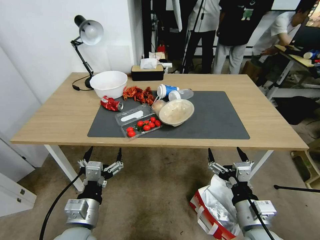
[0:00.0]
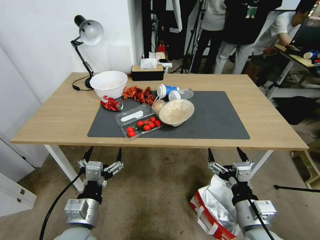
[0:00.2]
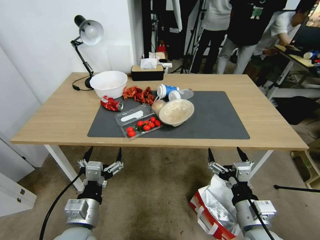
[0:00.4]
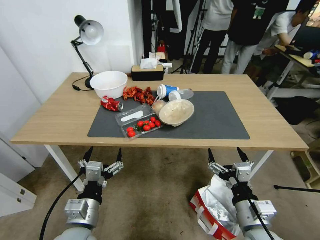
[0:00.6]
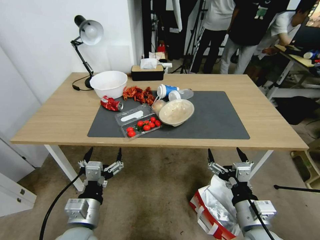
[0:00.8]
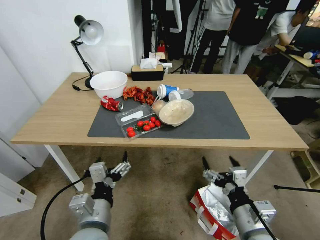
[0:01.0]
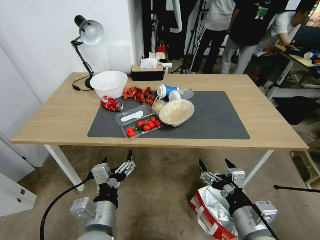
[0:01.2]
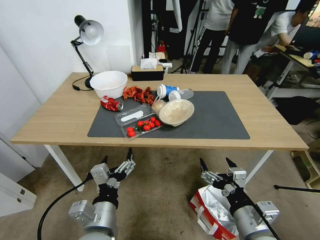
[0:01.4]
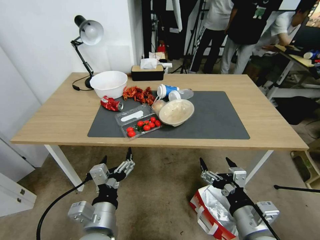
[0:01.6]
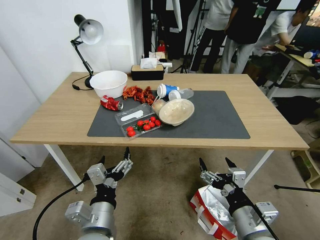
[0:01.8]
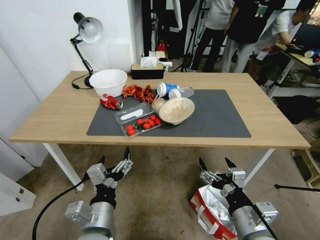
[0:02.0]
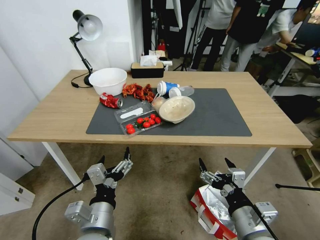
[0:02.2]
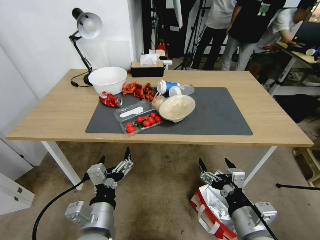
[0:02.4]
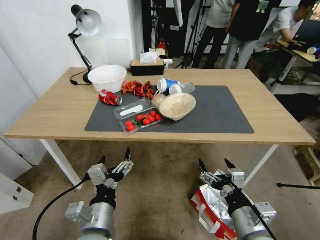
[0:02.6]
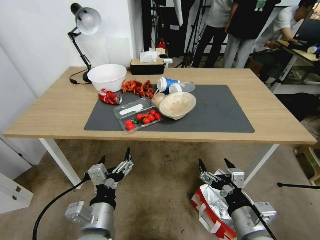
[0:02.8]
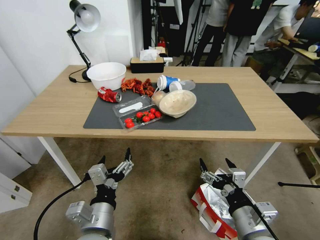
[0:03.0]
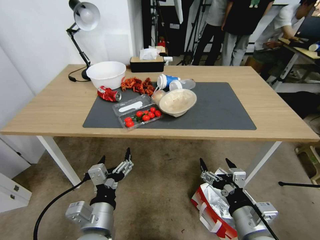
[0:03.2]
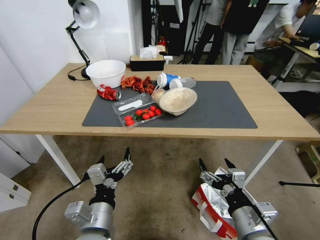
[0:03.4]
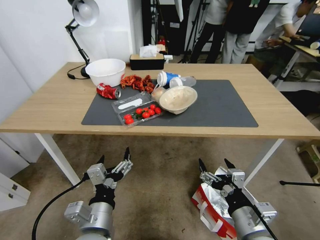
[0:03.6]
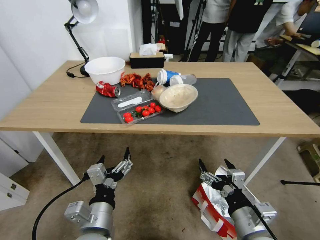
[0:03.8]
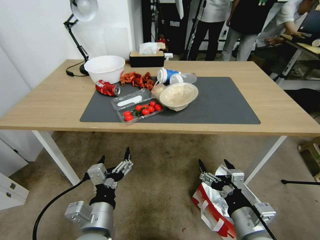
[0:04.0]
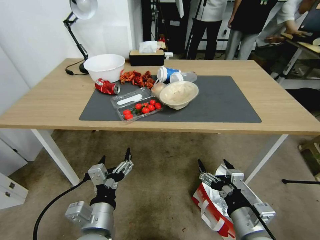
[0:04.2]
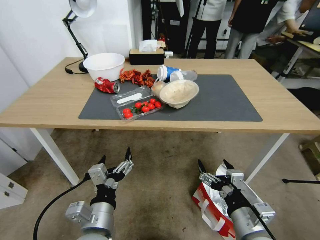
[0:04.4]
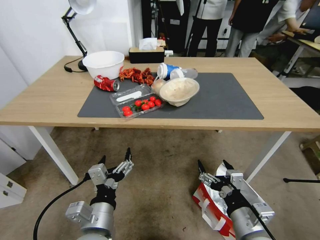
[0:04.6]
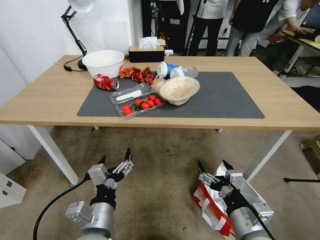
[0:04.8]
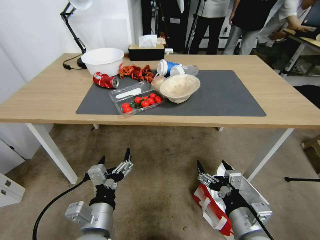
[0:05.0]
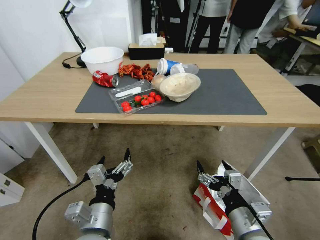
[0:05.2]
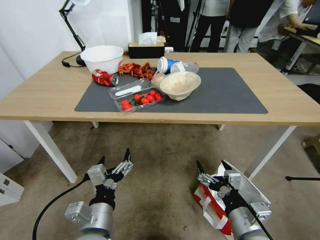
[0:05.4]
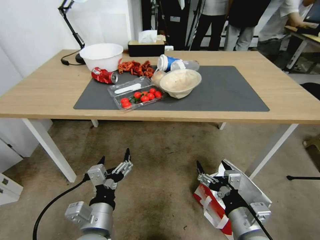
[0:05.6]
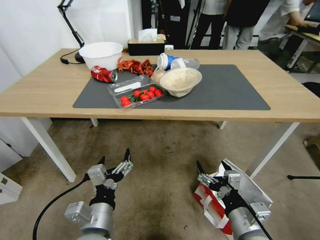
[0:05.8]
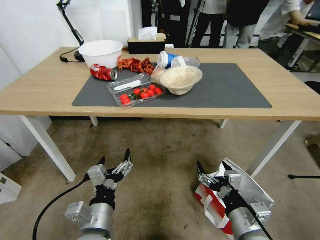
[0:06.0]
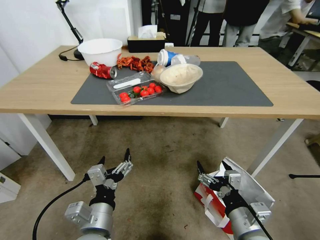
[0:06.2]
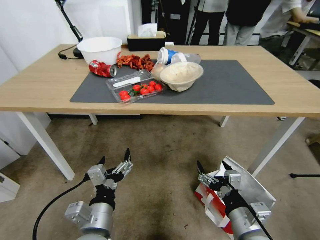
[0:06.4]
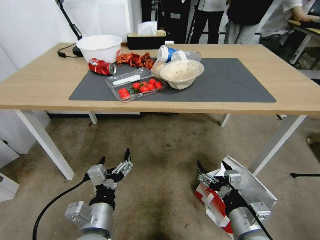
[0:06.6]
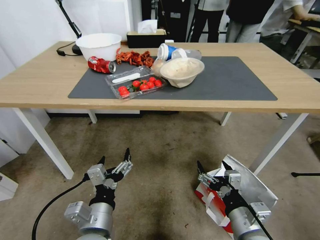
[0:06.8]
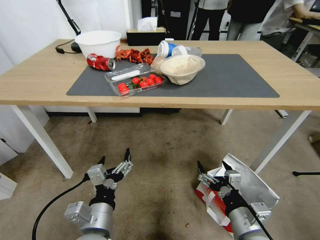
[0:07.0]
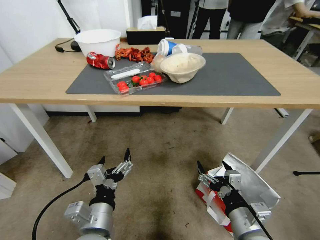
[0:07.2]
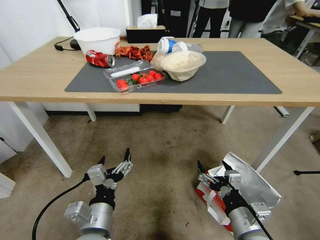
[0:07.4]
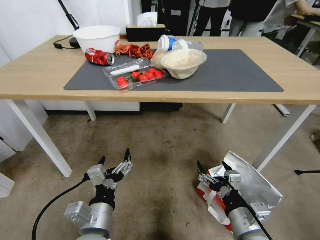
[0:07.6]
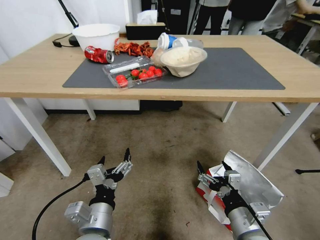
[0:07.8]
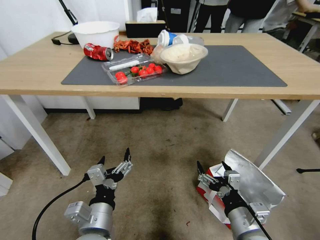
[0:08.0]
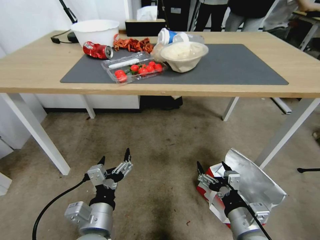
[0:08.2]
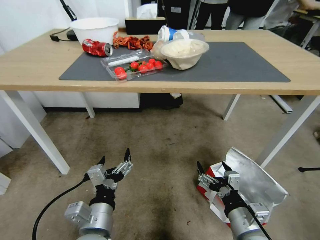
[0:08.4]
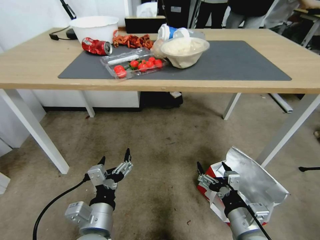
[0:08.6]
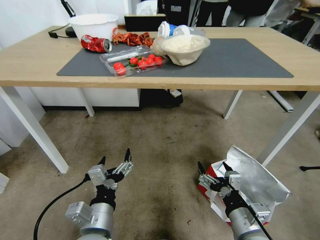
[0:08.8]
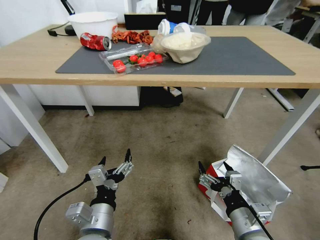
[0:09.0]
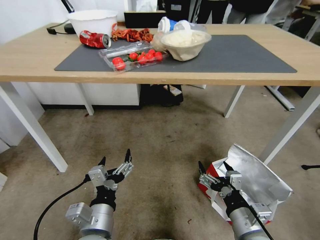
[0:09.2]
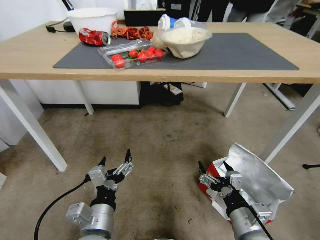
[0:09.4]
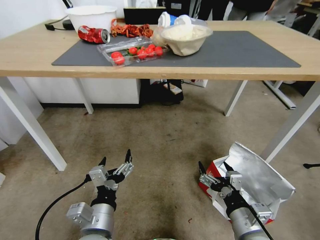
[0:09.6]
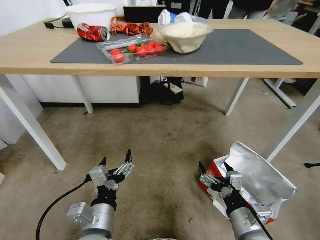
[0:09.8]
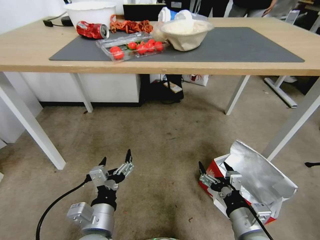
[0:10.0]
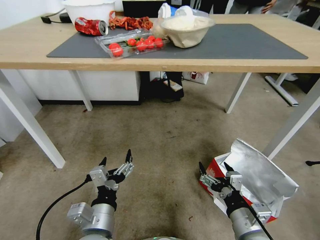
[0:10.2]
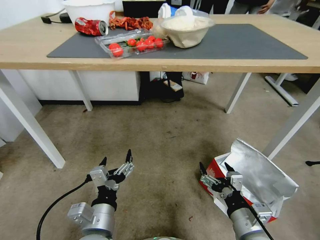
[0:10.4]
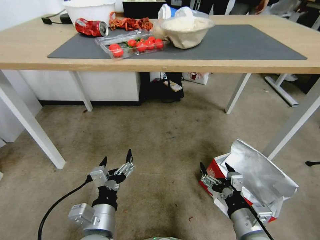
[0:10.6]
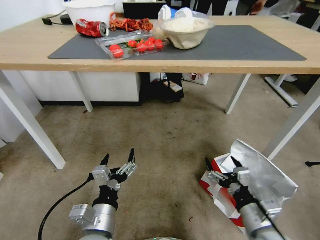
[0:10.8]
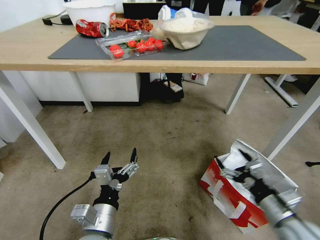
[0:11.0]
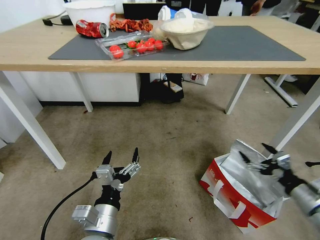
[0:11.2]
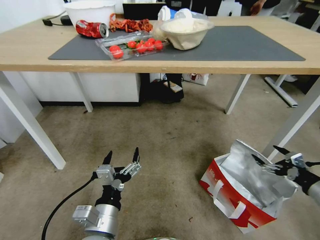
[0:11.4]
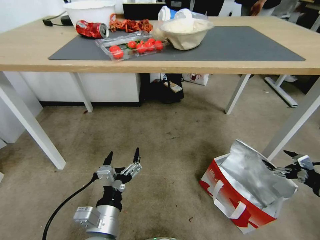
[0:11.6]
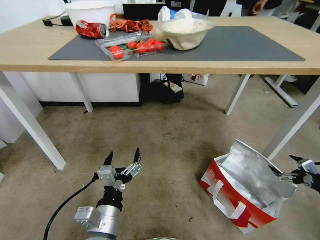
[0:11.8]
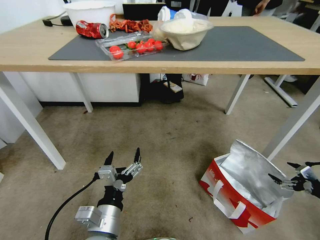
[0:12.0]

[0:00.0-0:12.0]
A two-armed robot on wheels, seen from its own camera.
Task of the whole recording: Pick up the food delivery bag from the floor and place it on the table.
0:10.4 to 0:12.0: The right gripper moves to the right, about 35 cm.

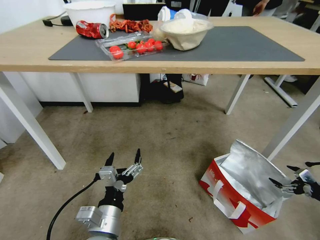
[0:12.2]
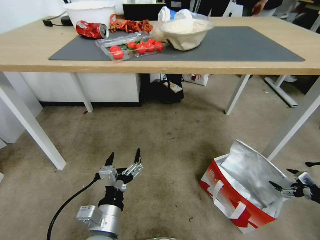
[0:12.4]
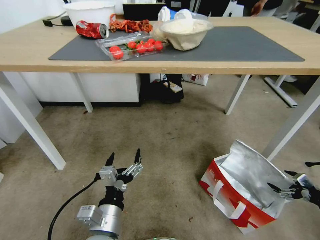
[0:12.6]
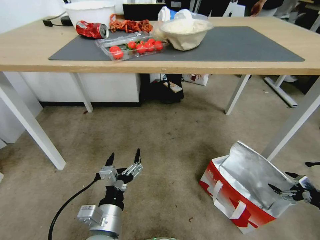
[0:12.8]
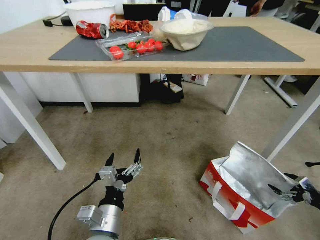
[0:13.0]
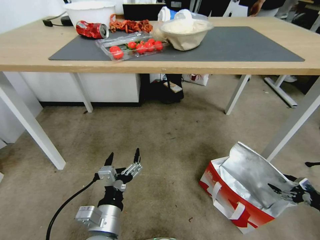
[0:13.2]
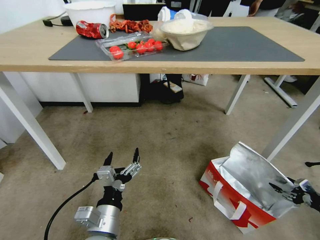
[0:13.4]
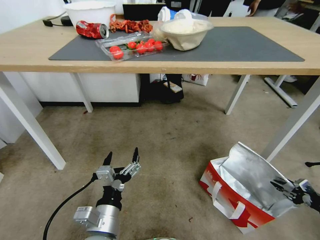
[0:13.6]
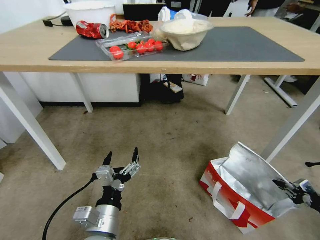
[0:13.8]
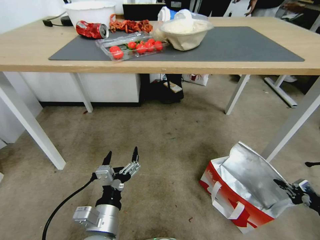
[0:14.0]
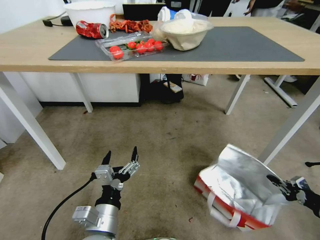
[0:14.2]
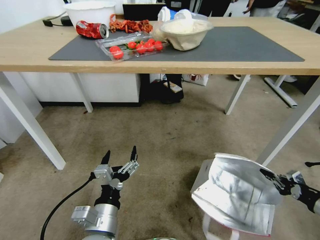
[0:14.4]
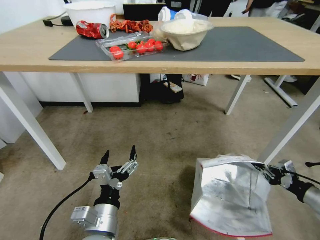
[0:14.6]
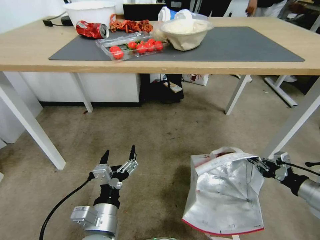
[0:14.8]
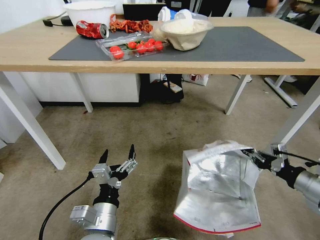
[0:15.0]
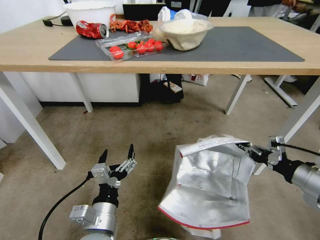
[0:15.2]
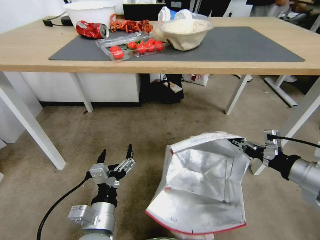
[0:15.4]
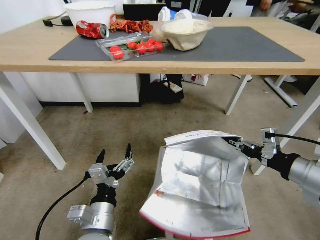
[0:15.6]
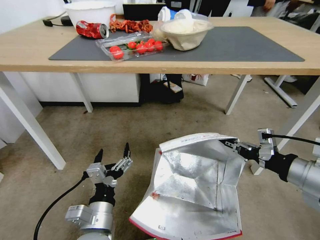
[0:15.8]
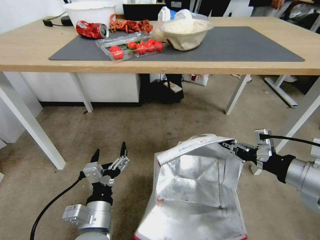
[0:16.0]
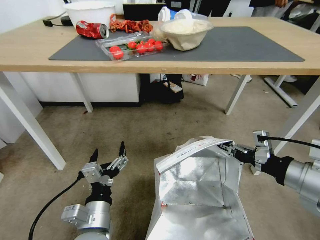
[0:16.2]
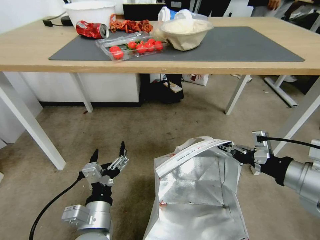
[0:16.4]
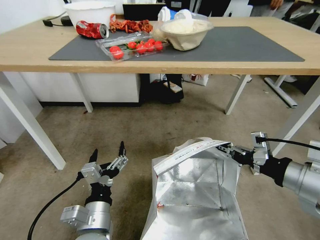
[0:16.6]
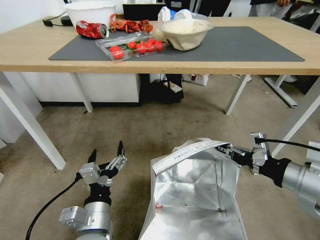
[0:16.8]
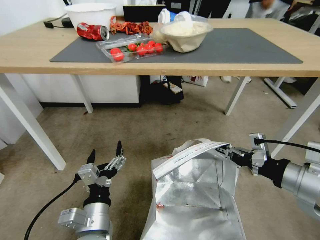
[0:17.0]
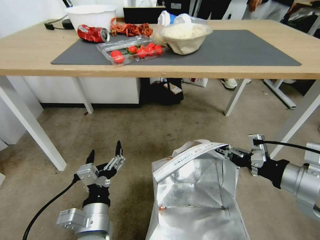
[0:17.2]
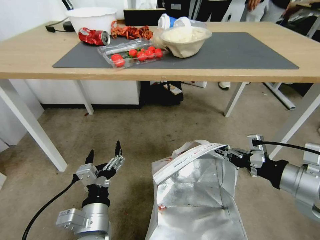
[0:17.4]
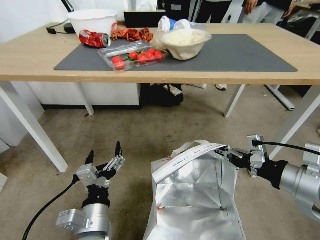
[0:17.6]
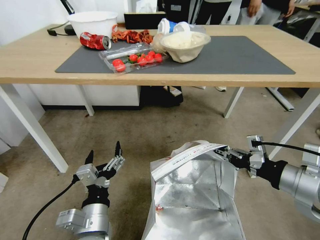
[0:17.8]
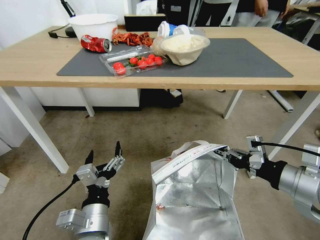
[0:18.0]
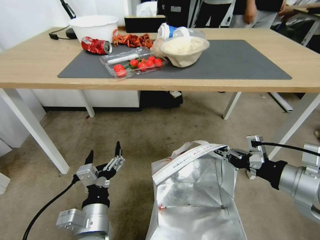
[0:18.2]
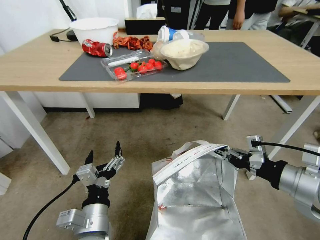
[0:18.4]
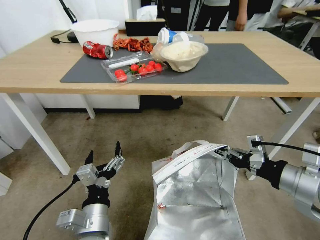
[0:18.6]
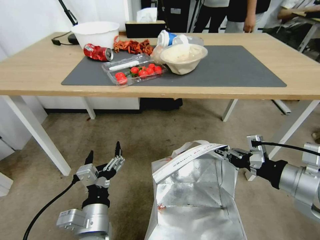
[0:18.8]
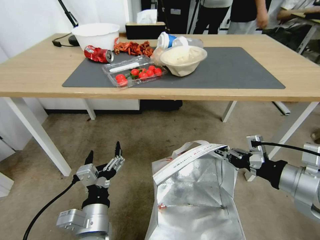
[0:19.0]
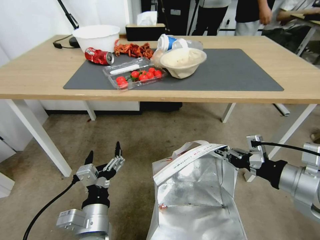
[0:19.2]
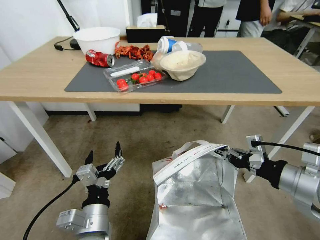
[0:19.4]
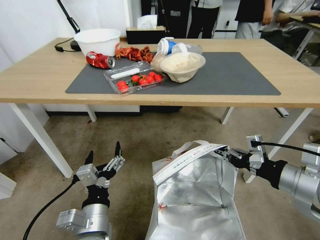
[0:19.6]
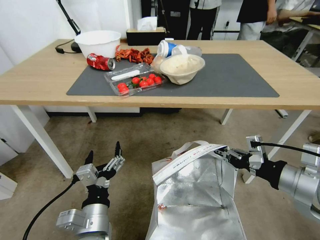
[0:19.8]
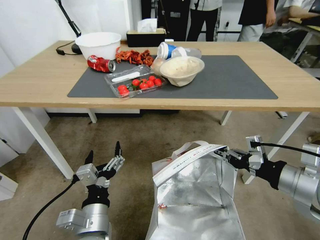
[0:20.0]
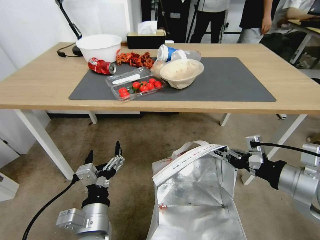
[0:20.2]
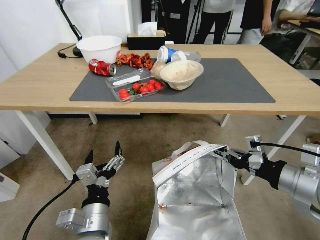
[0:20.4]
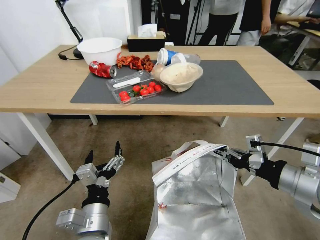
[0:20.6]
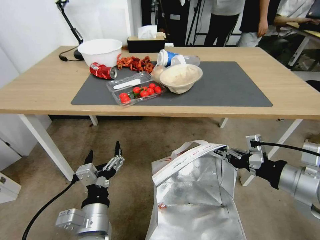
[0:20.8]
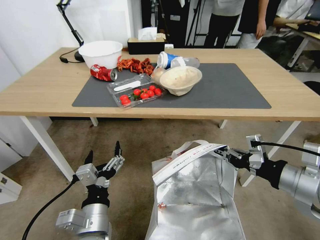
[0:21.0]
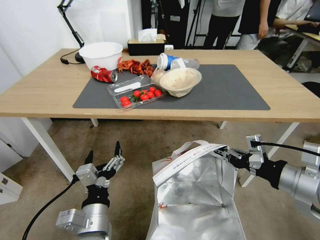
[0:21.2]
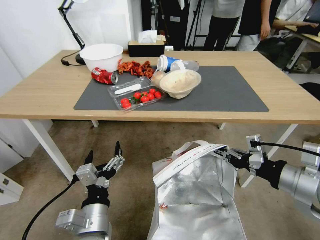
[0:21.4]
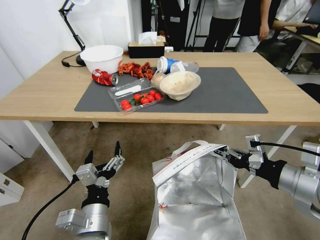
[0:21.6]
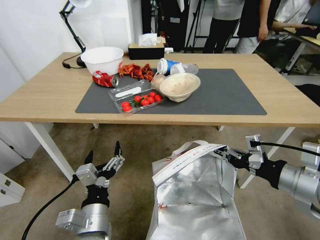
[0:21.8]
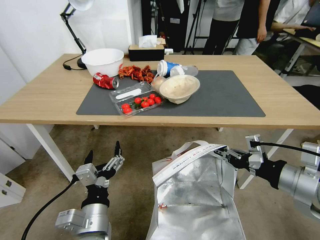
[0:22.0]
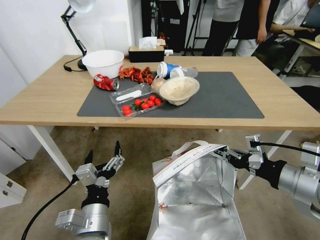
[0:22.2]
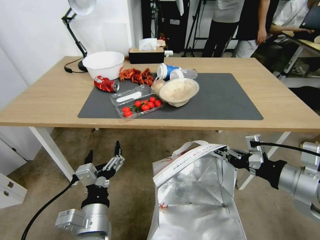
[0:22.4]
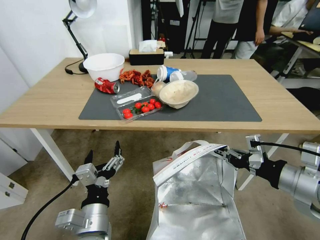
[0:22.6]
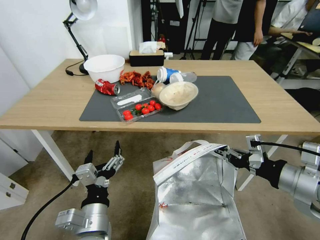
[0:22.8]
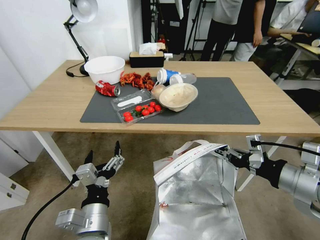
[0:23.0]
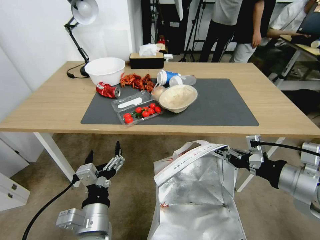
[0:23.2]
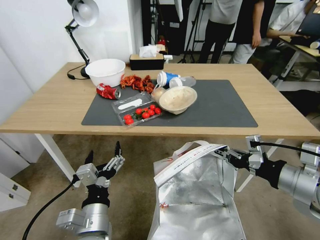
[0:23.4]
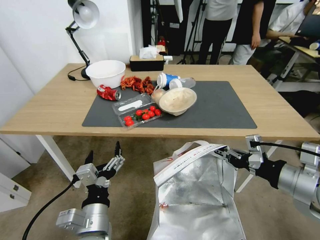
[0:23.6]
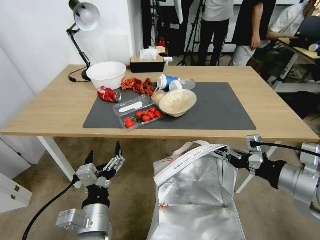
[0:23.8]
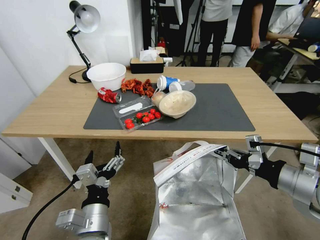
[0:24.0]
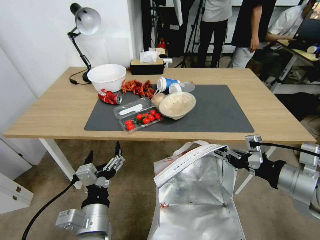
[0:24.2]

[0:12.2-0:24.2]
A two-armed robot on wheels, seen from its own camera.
Task of the whole recording: Pick up the food delivery bag from the floor and place it on the table.
0:12.2 to 0:13.8: The right gripper shifts by roughly 5 cm, and closes its fingers.
0:13.8 to 0:15.2: The right gripper goes some 20 cm to the left and upward.
0:15.2 to 0:16.6: The right gripper is displaced upward and to the left by some 15 cm.
